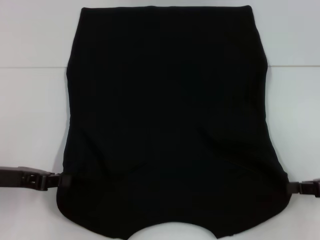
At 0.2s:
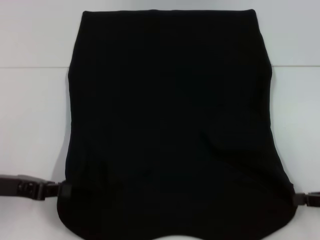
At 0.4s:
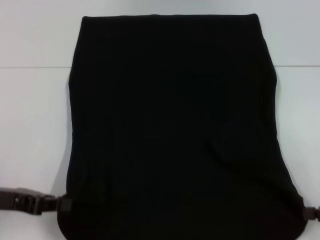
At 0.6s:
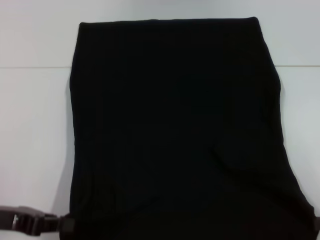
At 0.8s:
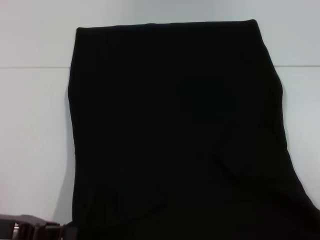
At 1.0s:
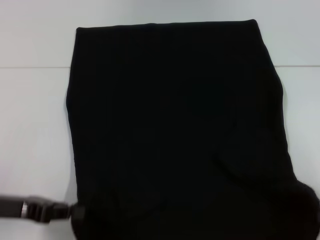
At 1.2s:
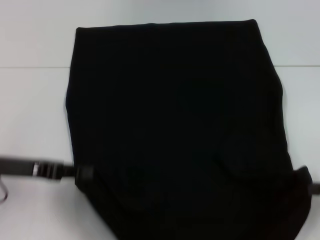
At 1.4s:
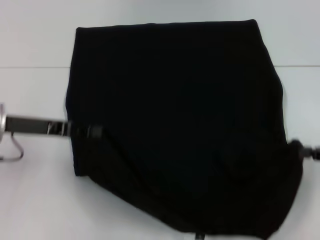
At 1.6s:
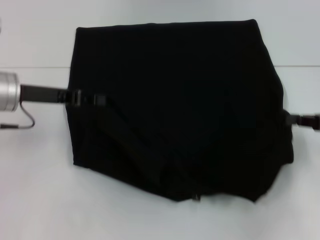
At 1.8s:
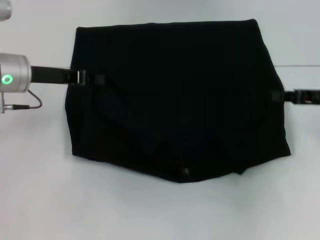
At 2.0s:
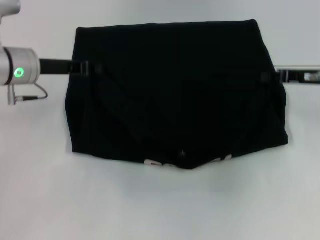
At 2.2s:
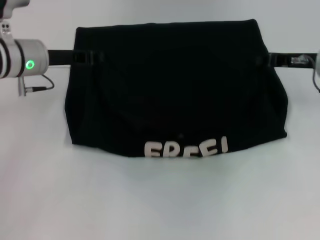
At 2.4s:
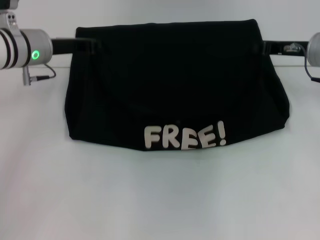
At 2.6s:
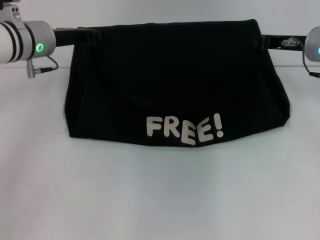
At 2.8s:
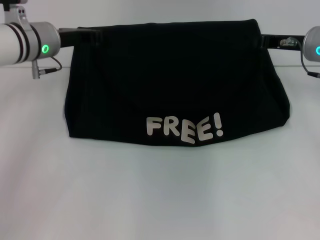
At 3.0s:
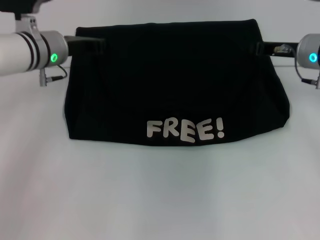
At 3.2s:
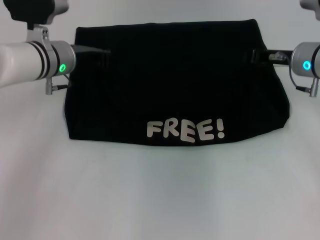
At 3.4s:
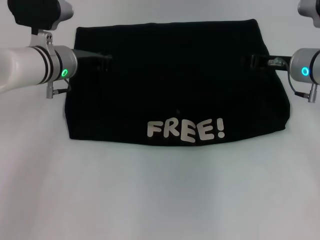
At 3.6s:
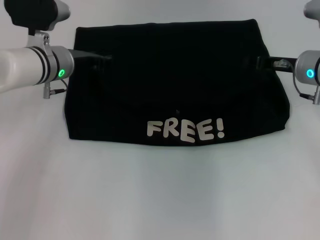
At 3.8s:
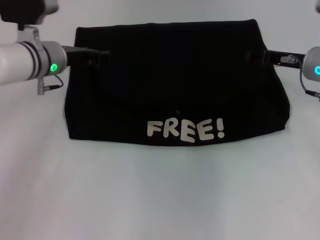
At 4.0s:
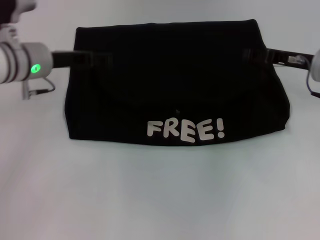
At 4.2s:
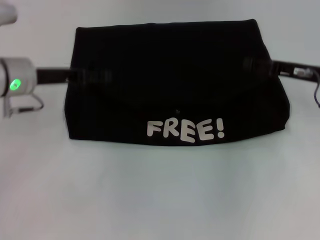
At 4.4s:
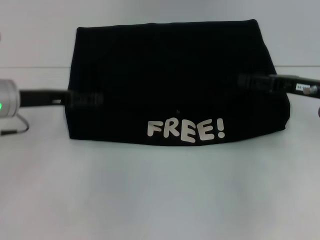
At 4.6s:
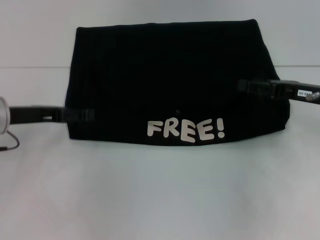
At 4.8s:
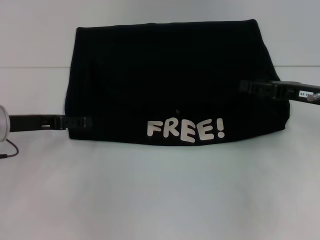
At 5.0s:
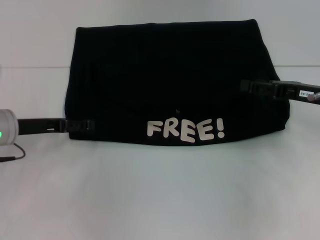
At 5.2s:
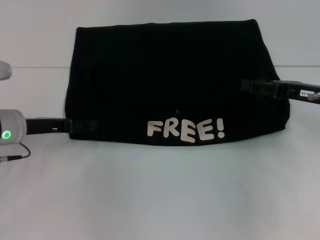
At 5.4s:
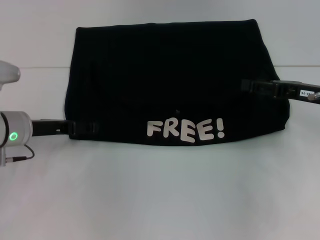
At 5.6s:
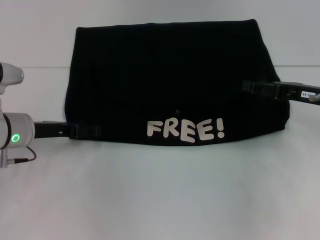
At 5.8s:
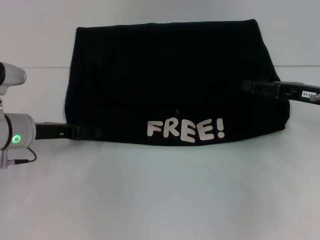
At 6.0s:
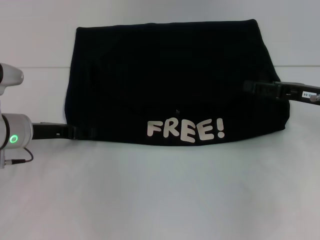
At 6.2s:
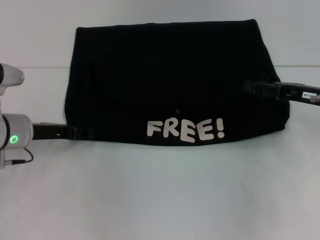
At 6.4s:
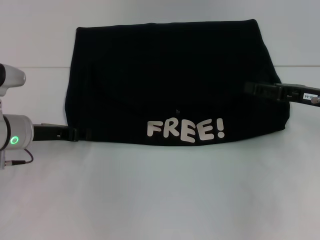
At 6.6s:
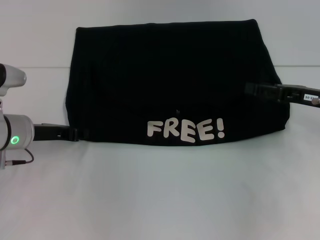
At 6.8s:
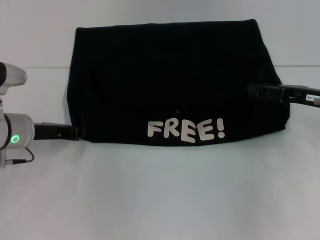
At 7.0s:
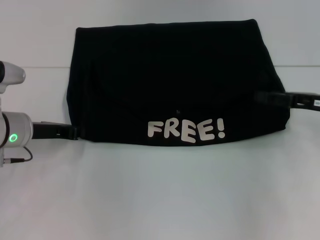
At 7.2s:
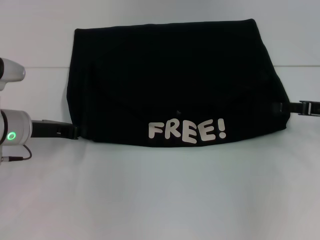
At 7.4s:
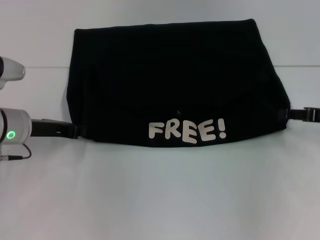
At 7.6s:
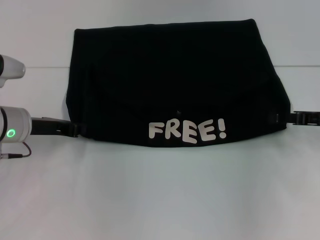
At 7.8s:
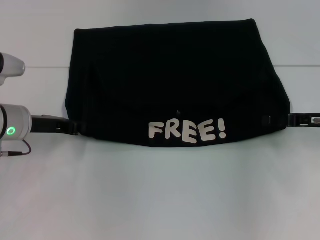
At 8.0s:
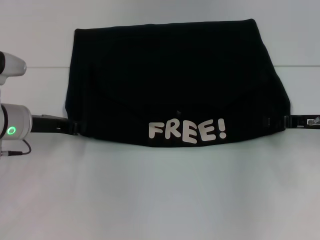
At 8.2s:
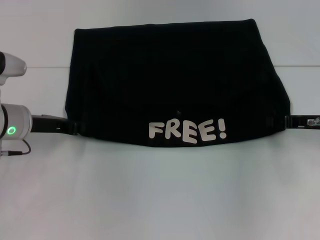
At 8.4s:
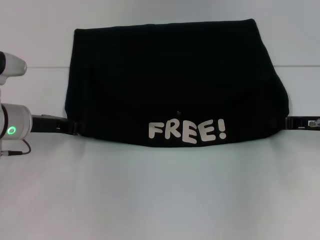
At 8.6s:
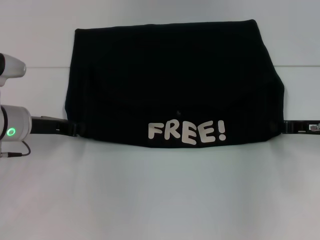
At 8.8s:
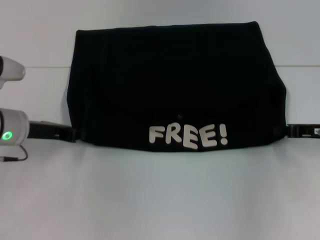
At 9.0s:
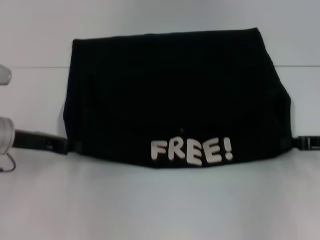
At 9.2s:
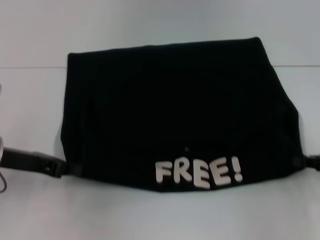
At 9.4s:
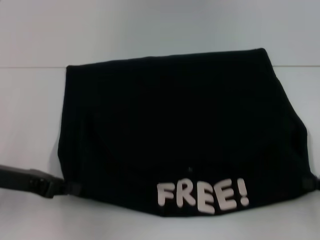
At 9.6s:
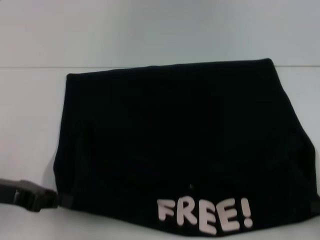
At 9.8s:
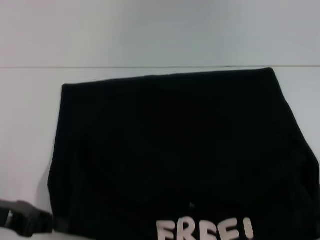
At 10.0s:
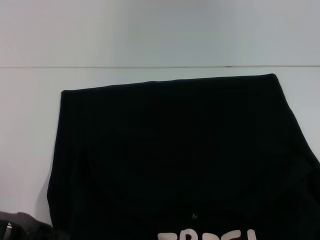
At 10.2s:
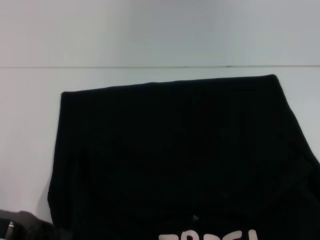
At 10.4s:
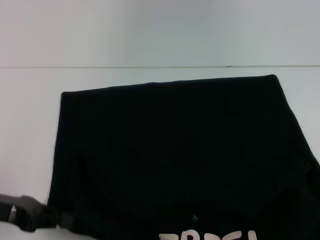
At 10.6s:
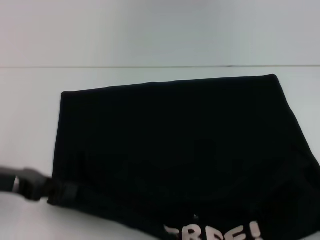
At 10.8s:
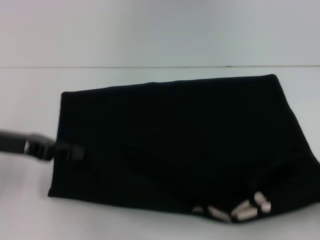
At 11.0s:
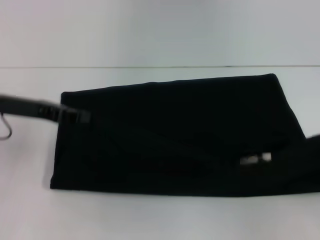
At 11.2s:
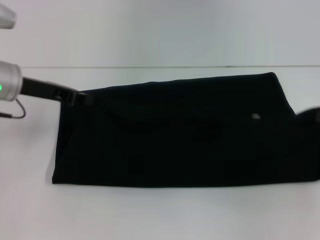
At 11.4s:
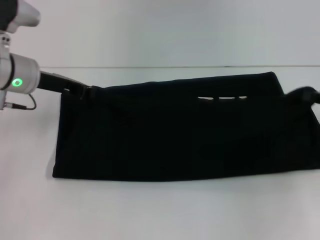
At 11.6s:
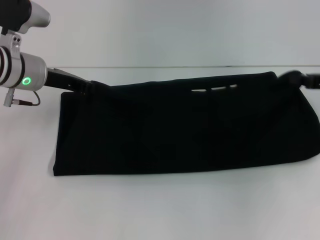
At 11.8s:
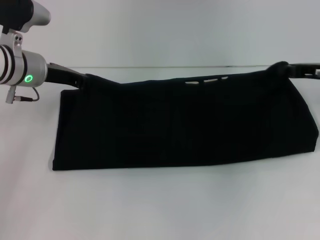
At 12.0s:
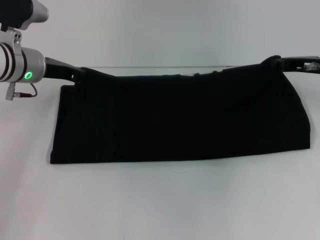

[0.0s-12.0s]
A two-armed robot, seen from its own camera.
Step, 0.0s to 3.6s: Fold the clothes with your left hand.
Step, 0.0s to 3.6s: Fold the clothes with your right hand.
Step, 3.8s to 9.8s: Pull the clothes with your left hand.
Step, 3.8s to 9.8s: Pull the clothes with your right hand.
0.0s to 1.6s: The left gripper goes some 10 cm forward and upward; the right gripper goes some 5 cm forward.
1.6s to 3.0s: The right gripper travels forward and to the left by about 15 cm. Meanwhile the left gripper is displaced forward and to the right by some 10 cm.
3.0s to 4.4s: The left gripper is displaced backward and to the left by some 10 cm, and opens. The right gripper is displaced backward by roughly 5 cm, and opens up.
4.4s to 6.0s: The left gripper shifts some 5 cm downward.
6.0s to 7.6s: The left gripper closes its fingers.
7.6s to 9.0s: The right gripper closes.
9.0s to 10.4s: The right gripper travels backward by about 15 cm. The left gripper shifts about 10 cm backward.
10.4s to 12.0s: Both grippers travel together forward, roughly 20 cm.

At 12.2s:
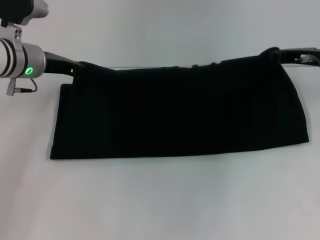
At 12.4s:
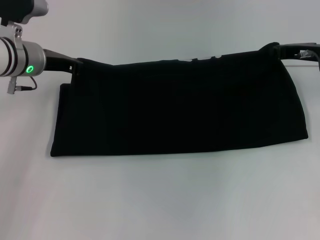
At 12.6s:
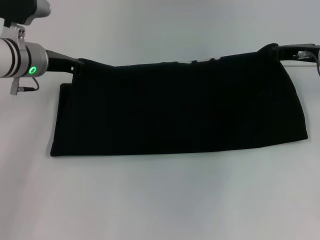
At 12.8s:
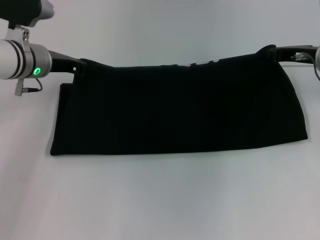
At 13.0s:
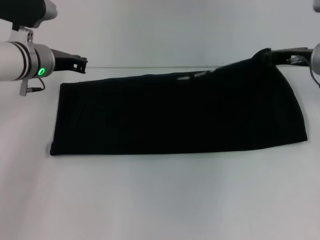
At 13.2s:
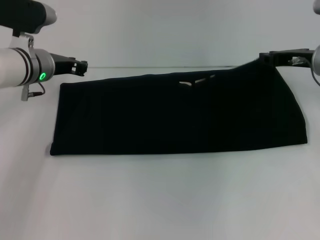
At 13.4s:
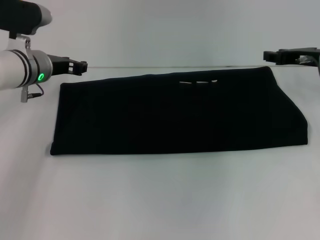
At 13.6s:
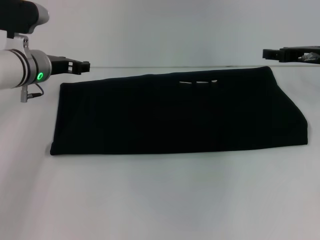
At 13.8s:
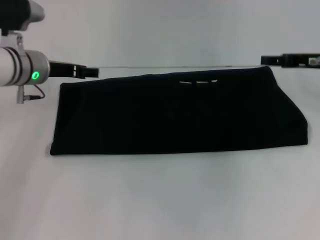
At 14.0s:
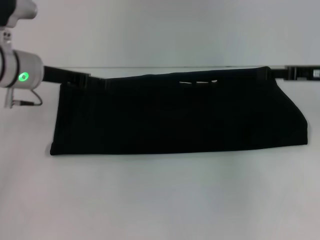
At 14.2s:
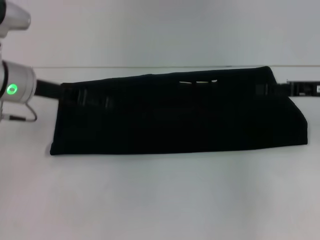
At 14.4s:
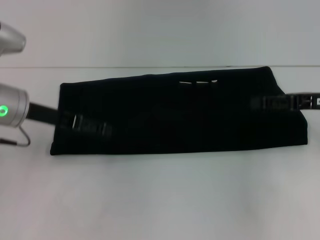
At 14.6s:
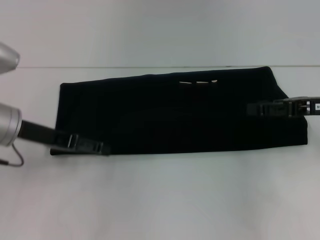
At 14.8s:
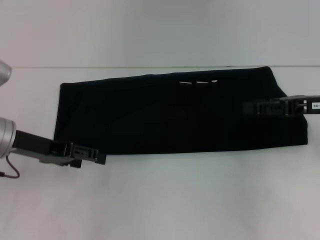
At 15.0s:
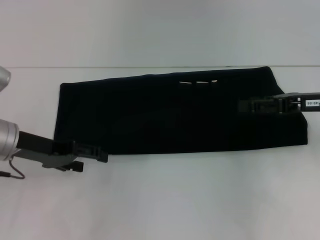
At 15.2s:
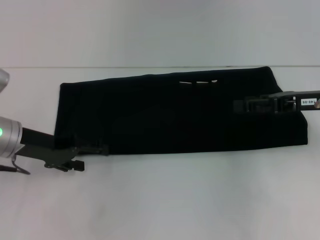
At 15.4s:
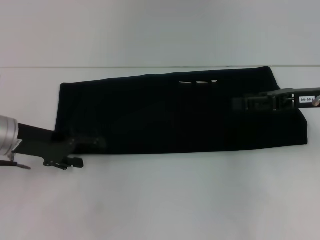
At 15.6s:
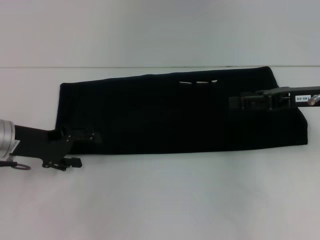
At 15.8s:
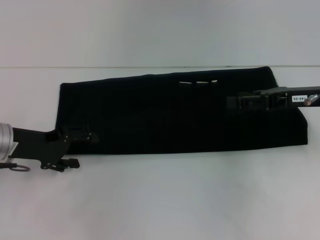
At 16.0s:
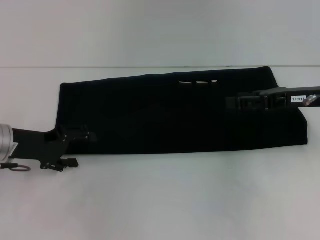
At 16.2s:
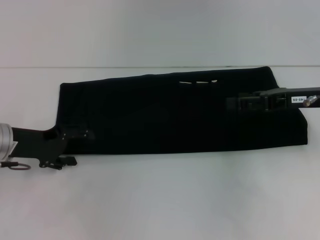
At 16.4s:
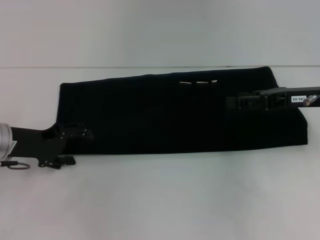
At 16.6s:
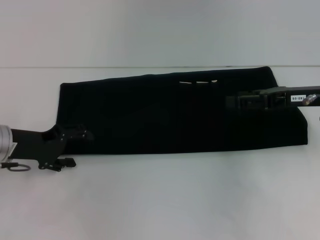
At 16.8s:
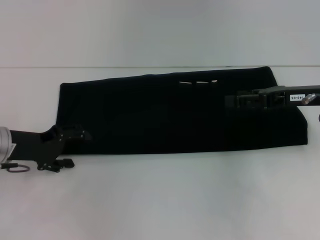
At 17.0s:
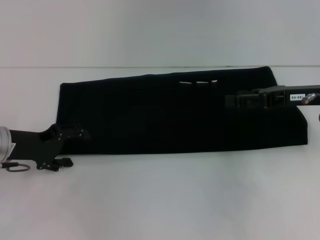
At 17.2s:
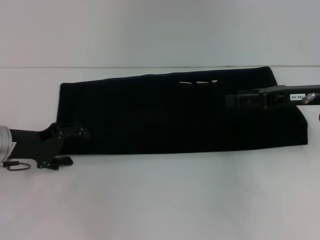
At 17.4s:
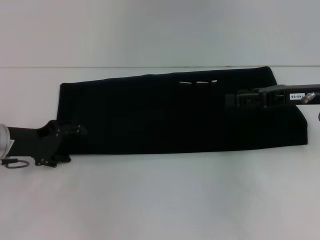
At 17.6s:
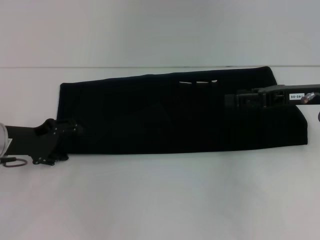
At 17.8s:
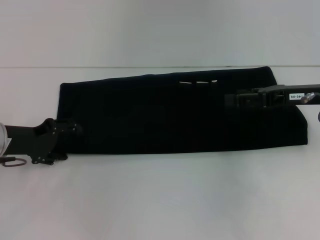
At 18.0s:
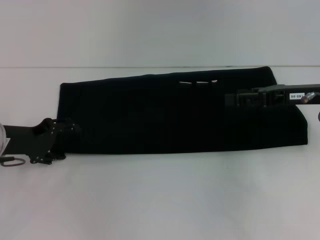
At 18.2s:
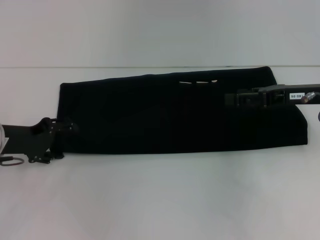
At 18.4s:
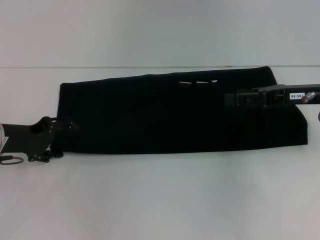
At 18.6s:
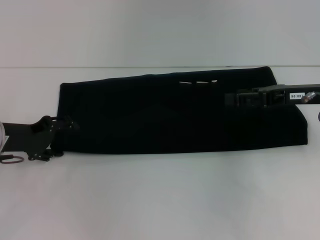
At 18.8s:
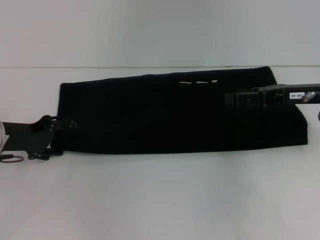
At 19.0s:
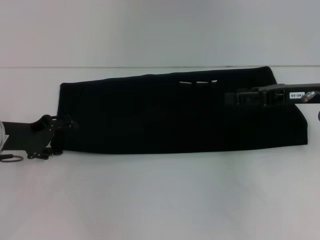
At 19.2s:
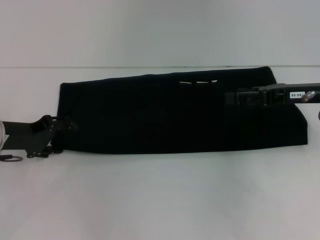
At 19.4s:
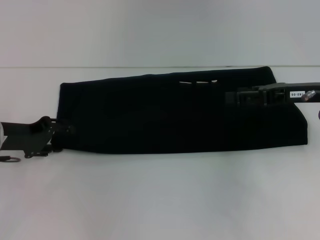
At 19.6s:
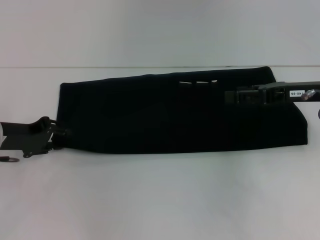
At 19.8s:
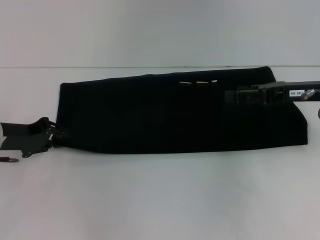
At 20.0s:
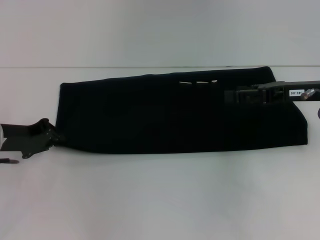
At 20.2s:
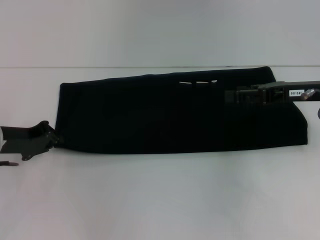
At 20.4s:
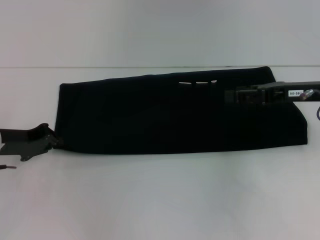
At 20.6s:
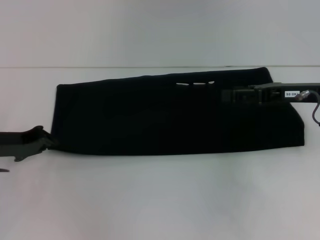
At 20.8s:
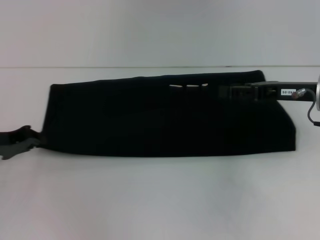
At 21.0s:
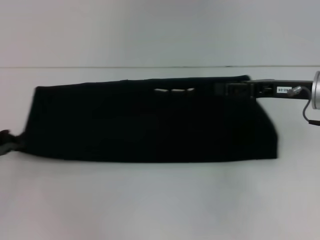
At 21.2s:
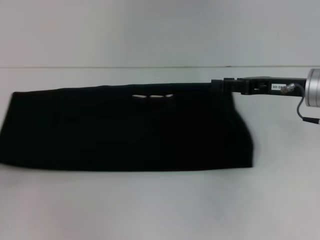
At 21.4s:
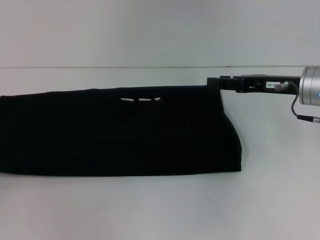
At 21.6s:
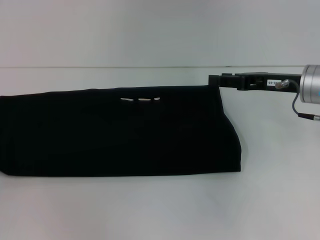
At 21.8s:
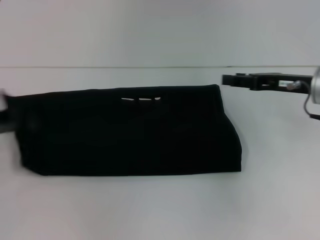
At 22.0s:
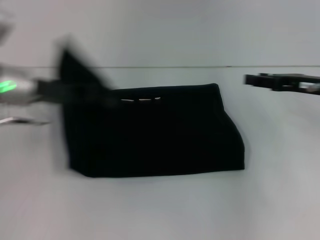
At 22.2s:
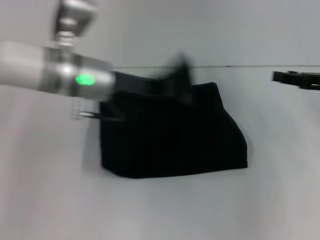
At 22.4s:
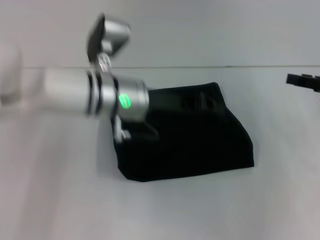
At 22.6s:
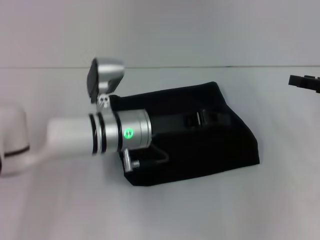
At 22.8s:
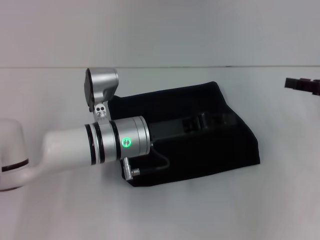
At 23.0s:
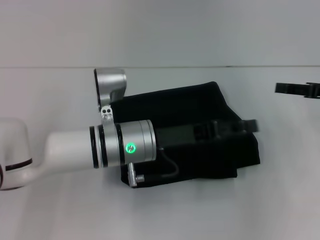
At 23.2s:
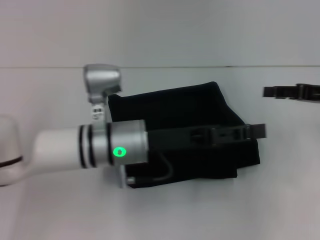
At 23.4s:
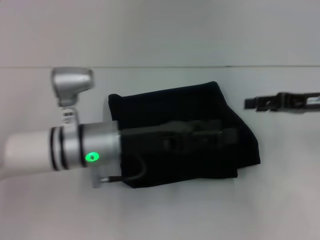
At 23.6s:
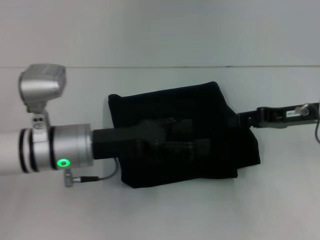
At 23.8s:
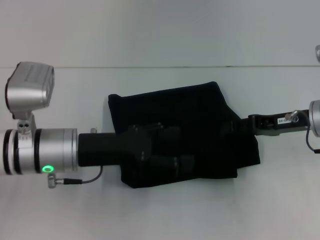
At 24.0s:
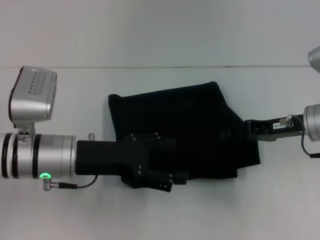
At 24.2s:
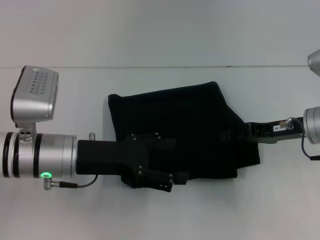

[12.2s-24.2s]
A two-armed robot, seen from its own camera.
Step, 12.2s to 23.2s: Fold the clothes with your left hand.
12.2s to 13.8s: The right gripper opens up. Meanwhile the left gripper opens.
13.8s to 15.2s: The right gripper moves backward, approximately 5 cm, while the left gripper shifts some 10 cm backward.
16.6s to 19.8s: The grippers move only a little.
19.8s to 21.2s: The left gripper goes about 10 cm to the left and backward, and closes up.
21.2s to 22.6s: The left gripper moves to the right, approximately 30 cm; the right gripper is displaced to the right by approximately 10 cm.
22.6s to 24.2s: The left gripper shifts some 10 cm to the left and backward, and opens. The right gripper is displaced to the left by about 10 cm.
